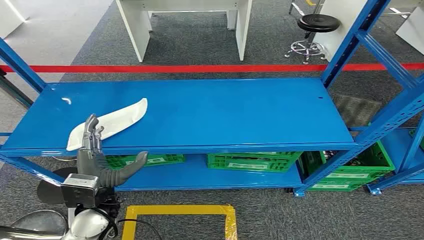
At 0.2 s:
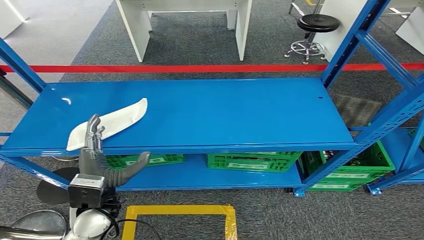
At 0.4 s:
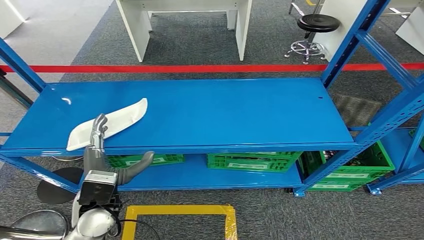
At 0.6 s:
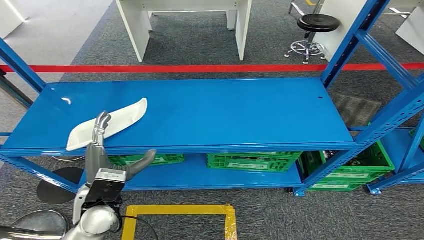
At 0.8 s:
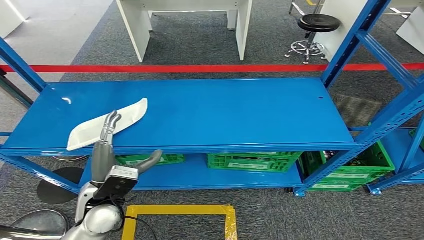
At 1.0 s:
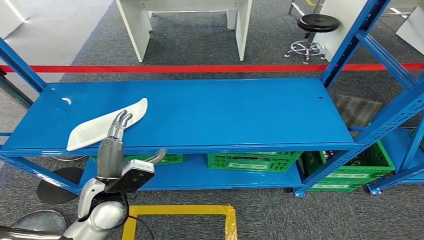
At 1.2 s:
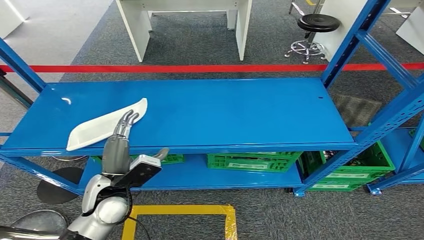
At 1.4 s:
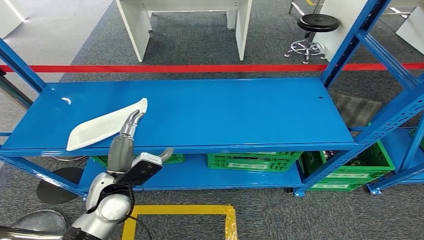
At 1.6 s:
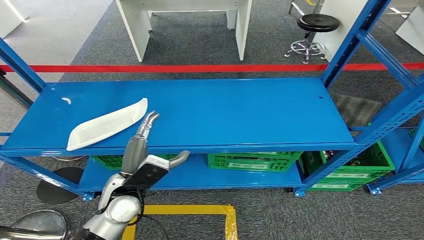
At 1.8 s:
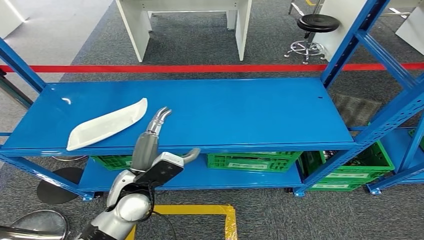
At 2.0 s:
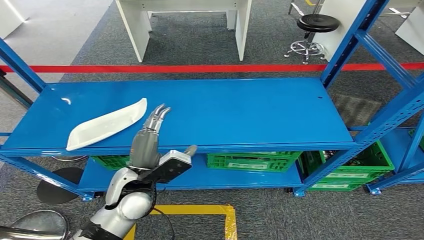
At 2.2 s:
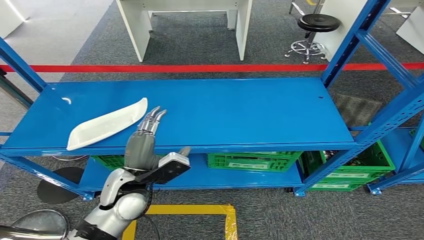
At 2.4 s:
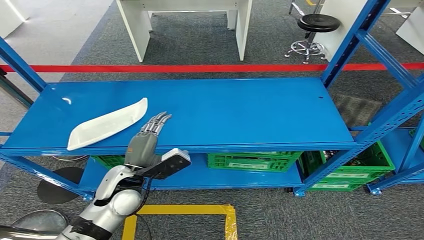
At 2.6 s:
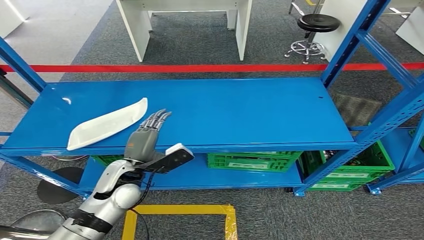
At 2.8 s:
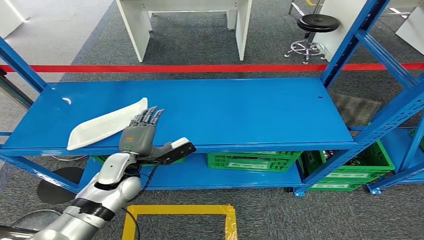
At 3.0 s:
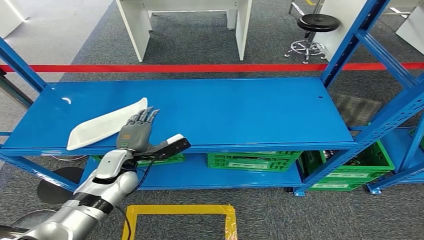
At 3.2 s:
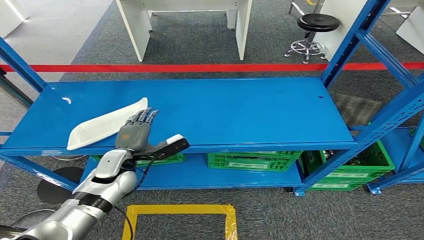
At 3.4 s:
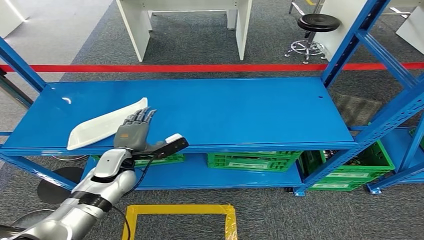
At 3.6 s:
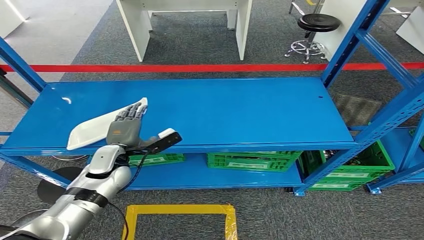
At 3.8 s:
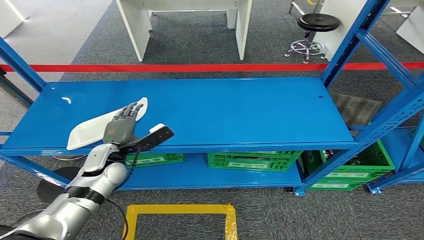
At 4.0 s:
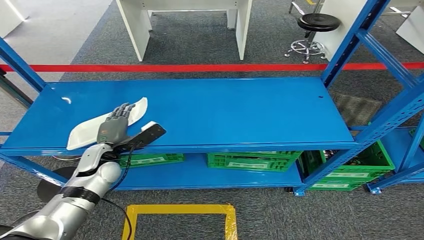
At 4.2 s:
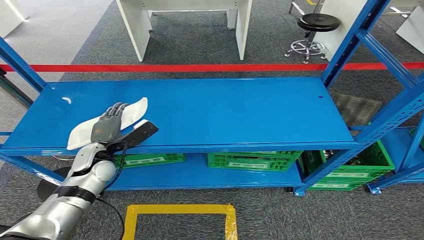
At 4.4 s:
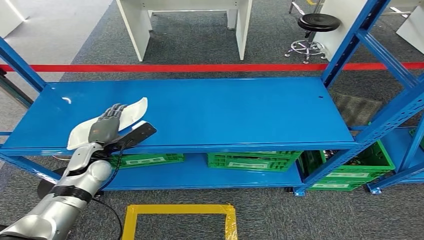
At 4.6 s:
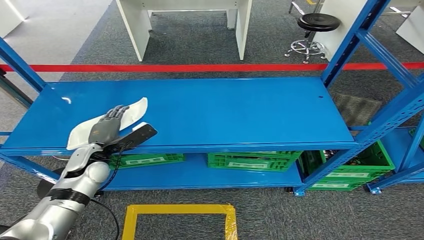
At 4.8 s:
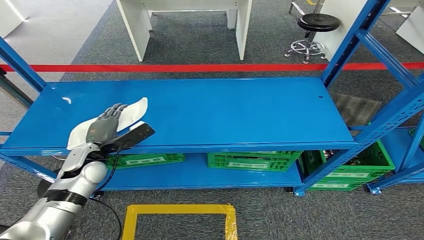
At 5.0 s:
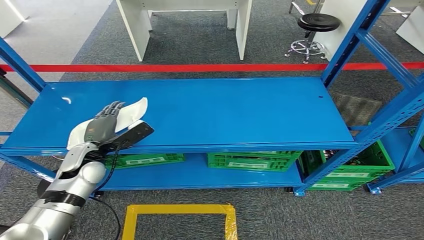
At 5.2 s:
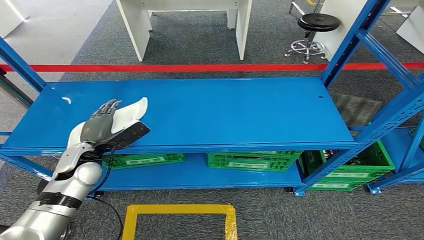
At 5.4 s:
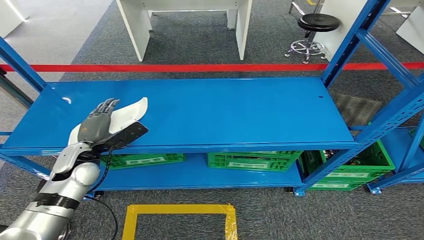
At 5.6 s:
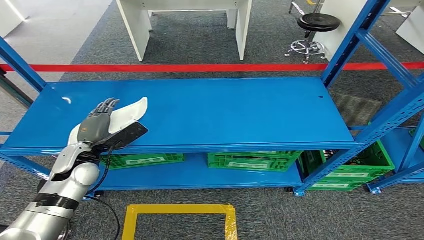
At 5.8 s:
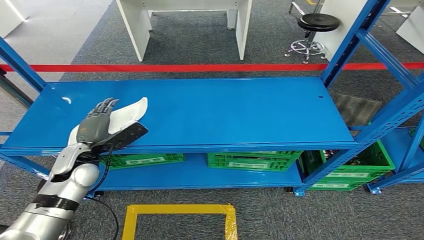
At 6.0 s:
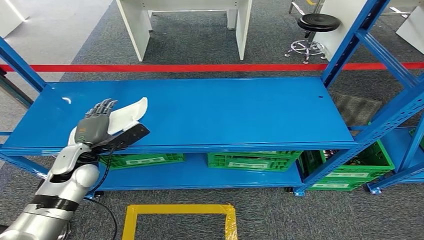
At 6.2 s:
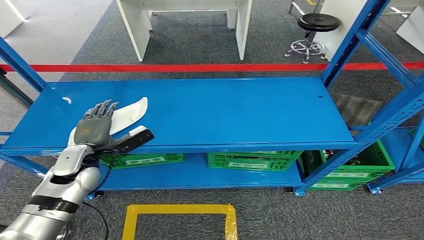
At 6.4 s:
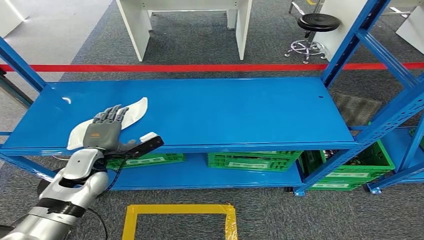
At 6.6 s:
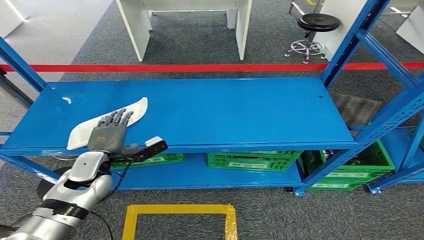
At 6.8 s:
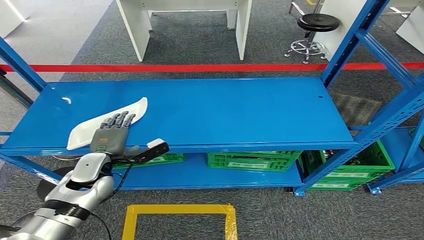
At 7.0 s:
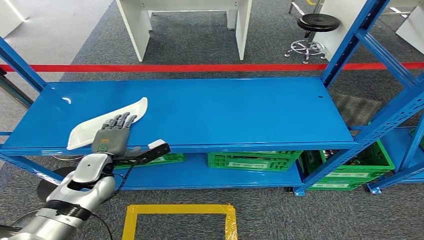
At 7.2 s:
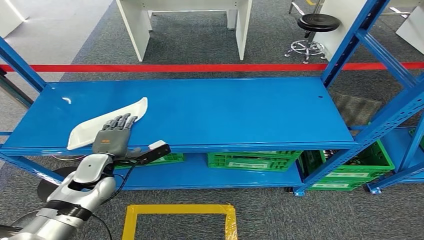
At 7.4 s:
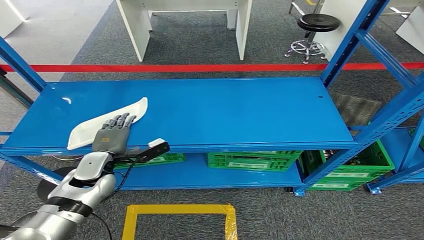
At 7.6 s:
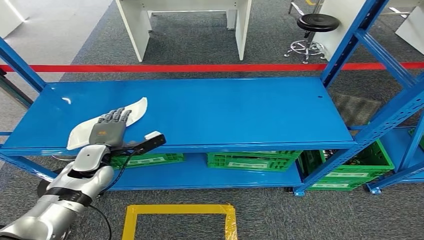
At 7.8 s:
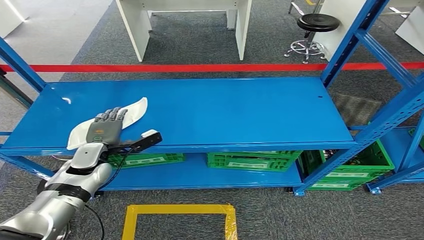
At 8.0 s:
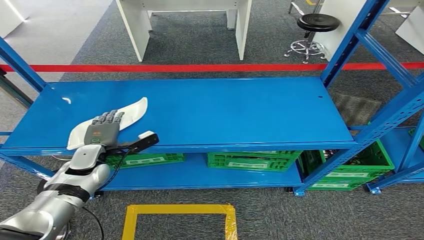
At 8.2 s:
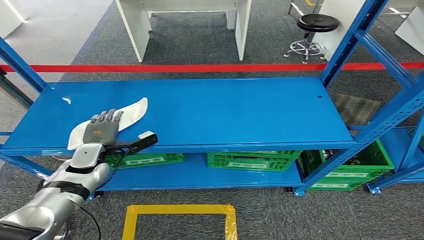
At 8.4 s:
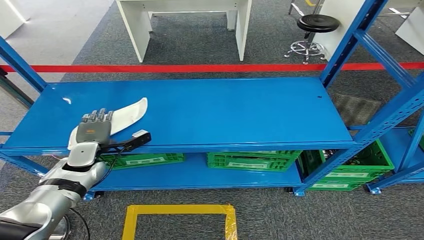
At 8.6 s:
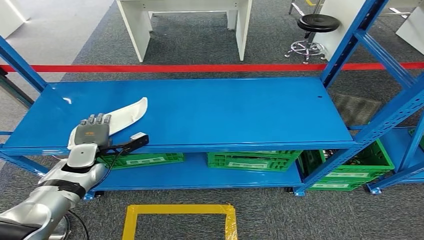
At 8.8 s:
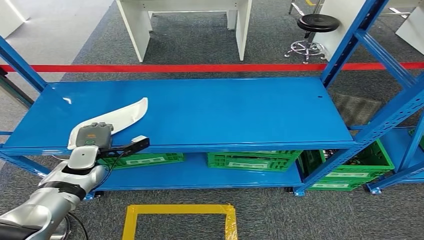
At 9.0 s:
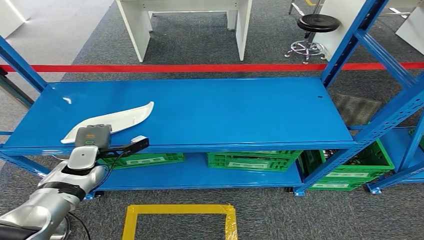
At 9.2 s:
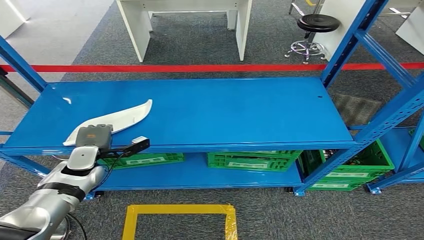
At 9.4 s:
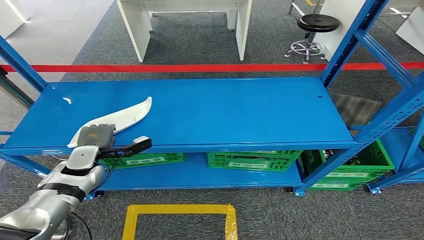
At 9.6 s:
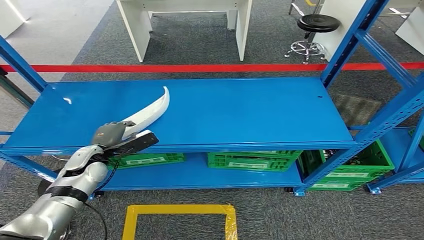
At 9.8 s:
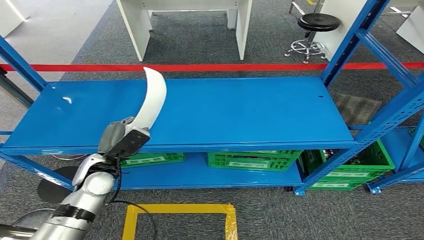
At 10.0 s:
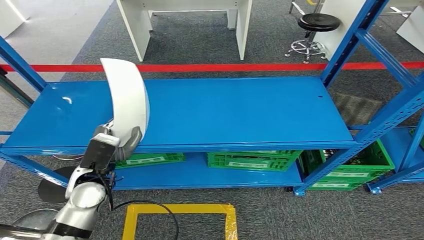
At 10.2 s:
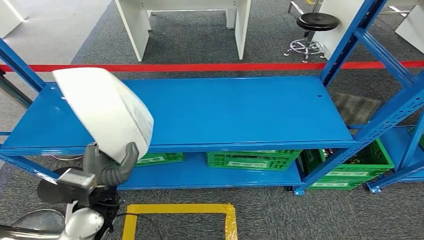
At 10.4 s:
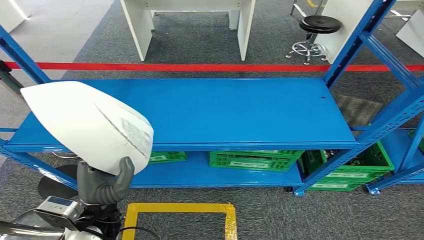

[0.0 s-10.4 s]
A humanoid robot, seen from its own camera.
Step, 0.0 to 10.4 s: Pick up the small component from the shelf.
1.4 to 3.0 s: The left hand moves forward, some 5 cm.
3.0 to 4.4 s: The left hand shifts some 5 cm to the left.
4.4 to 6.0 s: The hands stay close to where they were, moving slightly.
6.0 to 7.4 s: The left hand changes place by roughly 5 cm.
7.4 to 9.0 s: The left hand shifts by some 5 cm.
